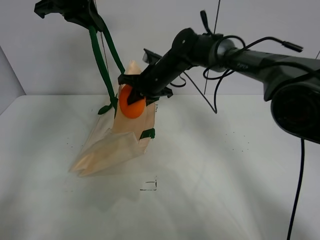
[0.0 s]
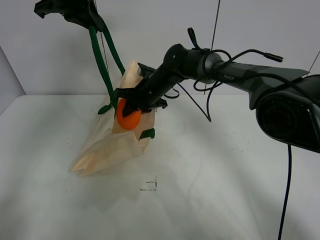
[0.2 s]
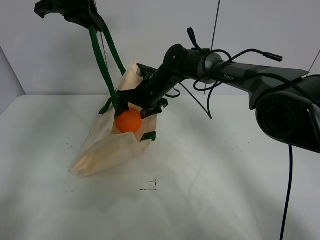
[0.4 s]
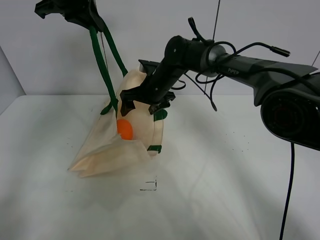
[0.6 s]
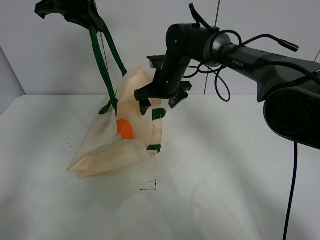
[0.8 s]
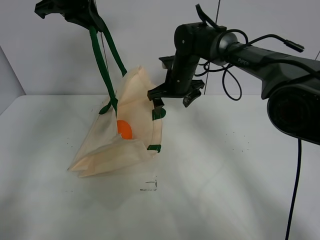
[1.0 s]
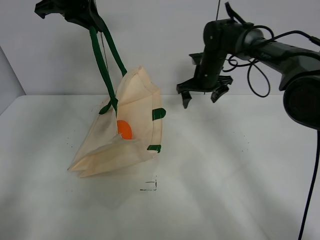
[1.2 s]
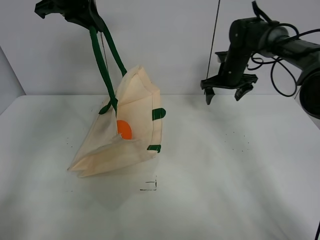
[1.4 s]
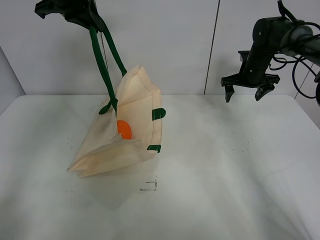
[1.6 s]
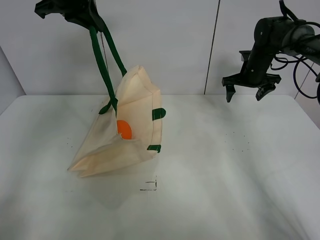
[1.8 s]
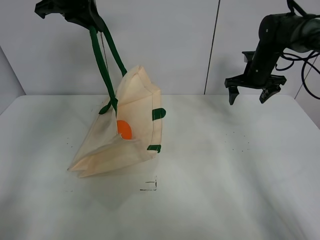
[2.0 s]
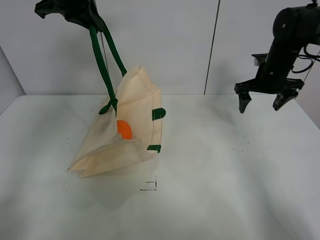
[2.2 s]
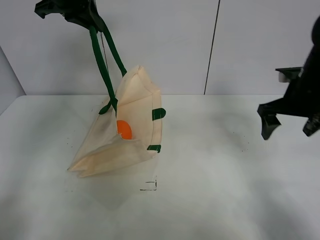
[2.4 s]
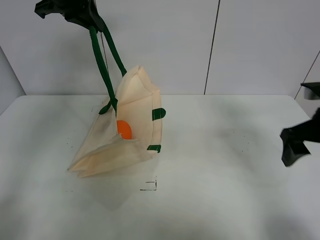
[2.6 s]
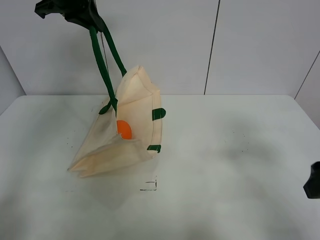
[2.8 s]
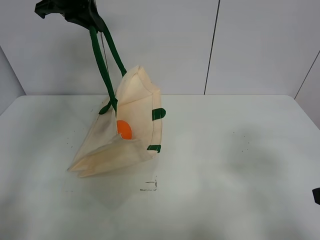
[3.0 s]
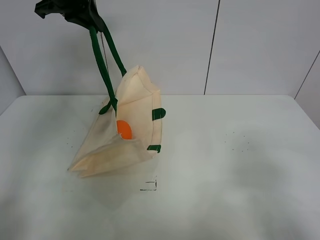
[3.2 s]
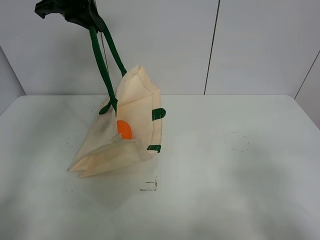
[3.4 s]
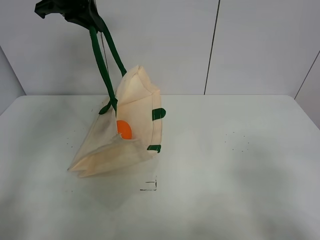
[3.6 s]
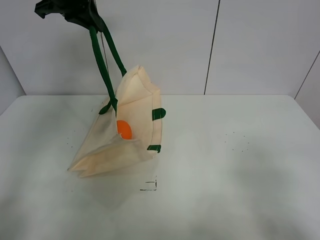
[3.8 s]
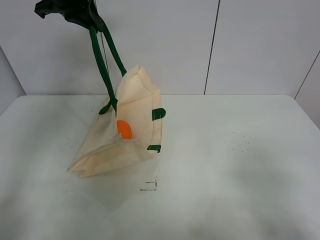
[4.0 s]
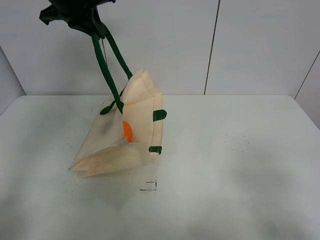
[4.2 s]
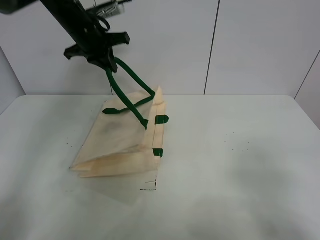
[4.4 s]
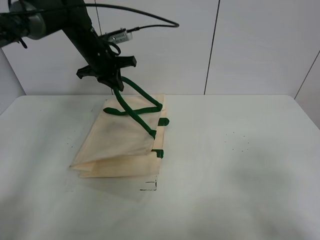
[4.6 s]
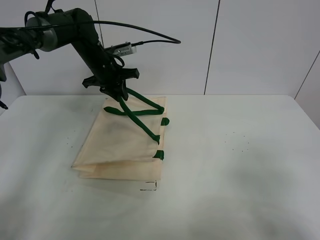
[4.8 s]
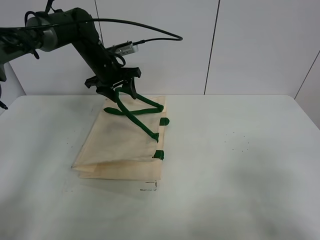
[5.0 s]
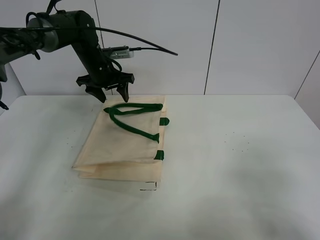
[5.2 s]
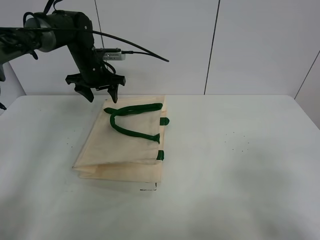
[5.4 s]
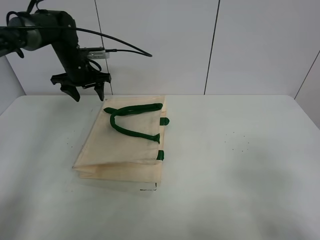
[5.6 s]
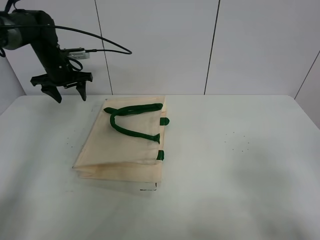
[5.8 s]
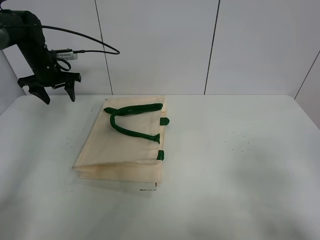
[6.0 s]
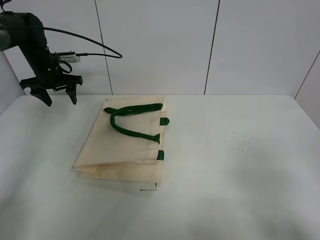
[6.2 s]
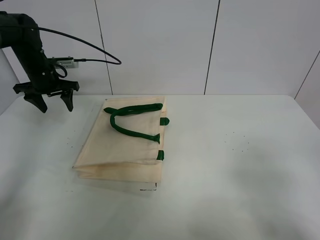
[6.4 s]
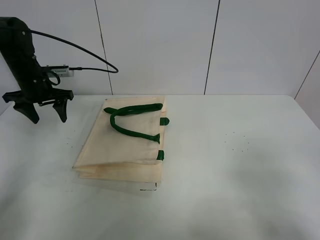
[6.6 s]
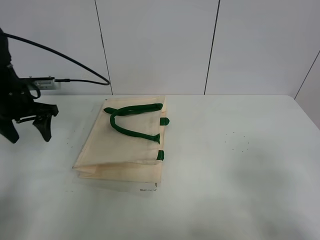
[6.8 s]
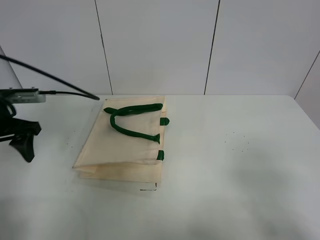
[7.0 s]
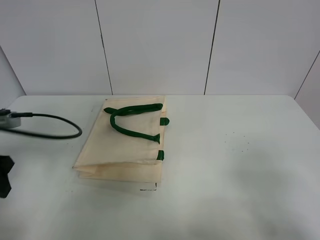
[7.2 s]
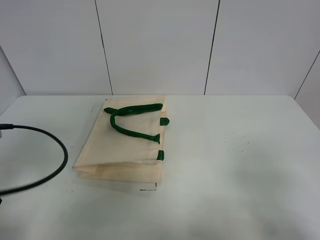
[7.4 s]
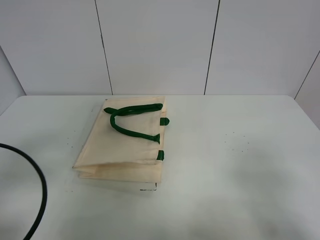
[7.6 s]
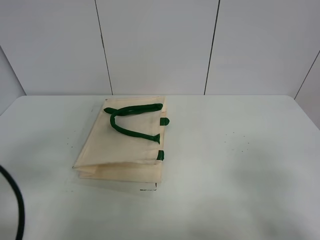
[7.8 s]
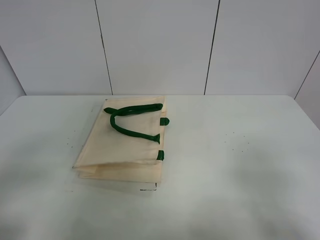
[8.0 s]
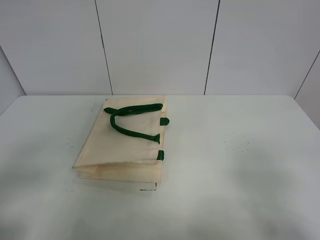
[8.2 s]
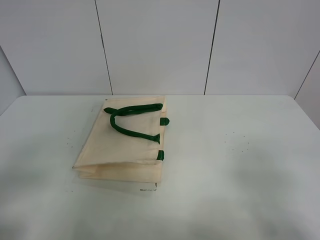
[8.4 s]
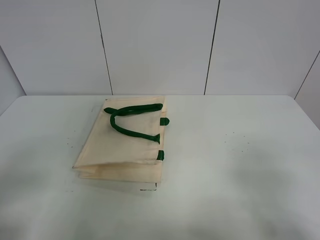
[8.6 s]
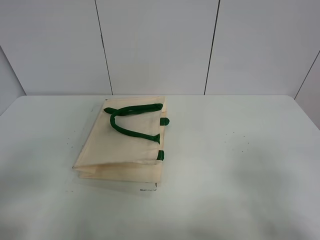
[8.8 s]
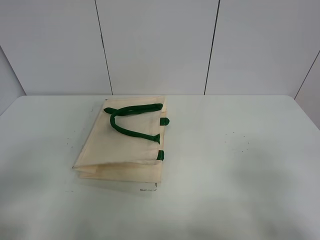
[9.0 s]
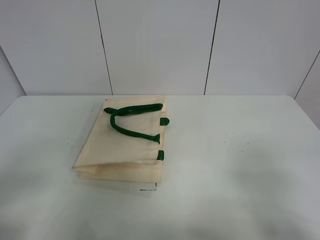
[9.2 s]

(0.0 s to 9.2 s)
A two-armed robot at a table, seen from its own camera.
Task of the whole recording: open the white linen bag and put the orange in the bag.
Step, 0.8 s - 5.2 s: Put down the handbag with left gripper.
0.0 s - 1.6 s: The right gripper moves to the right, some 25 cm, and opens its fingers.
1.6 s - 3.0 s: The right gripper heads backward, covering roughly 40 cm.
3.0 s - 4.6 s: The right gripper heads backward, covering about 10 cm; the left gripper heads downward and forward, covering approximately 20 cm.
4.6 s - 6.2 s: The left gripper is displaced to the left by roughly 15 cm, and opens.
6.2 s - 7.6 s: The left gripper shifts some 40 cm backward.
7.6 s - 9.2 s: The left gripper is displaced backward by approximately 5 cm.

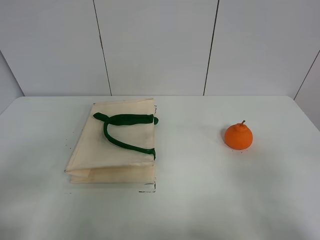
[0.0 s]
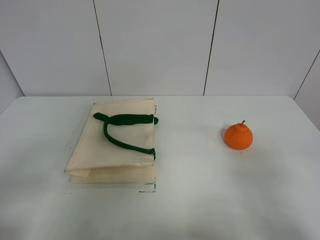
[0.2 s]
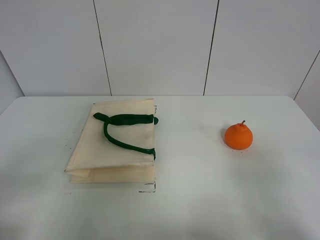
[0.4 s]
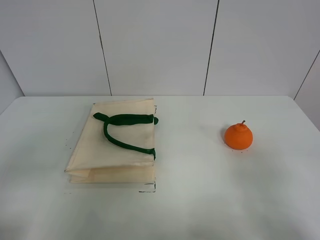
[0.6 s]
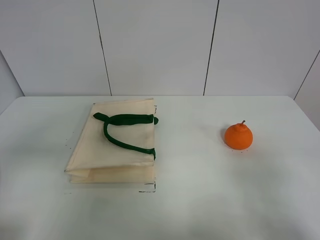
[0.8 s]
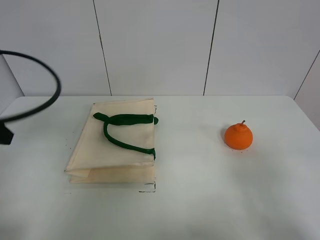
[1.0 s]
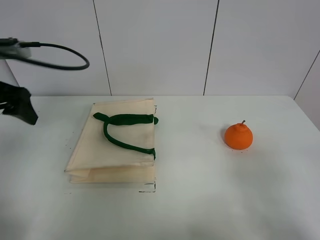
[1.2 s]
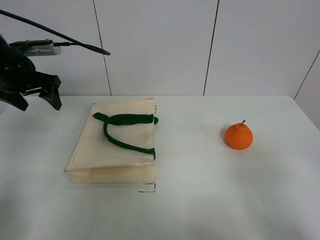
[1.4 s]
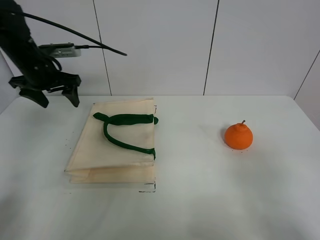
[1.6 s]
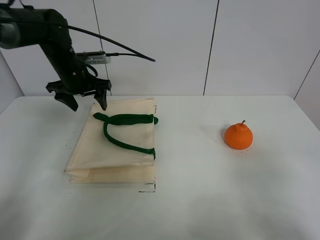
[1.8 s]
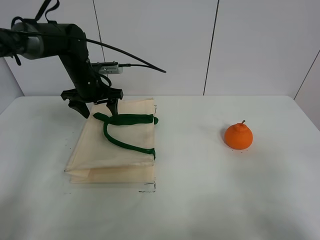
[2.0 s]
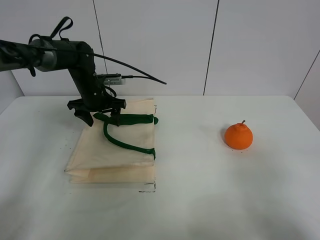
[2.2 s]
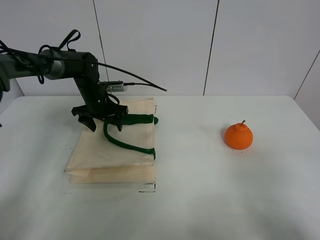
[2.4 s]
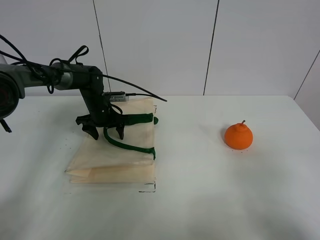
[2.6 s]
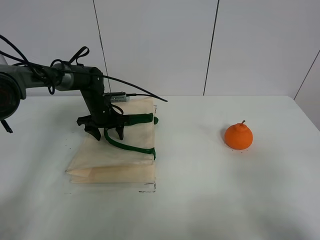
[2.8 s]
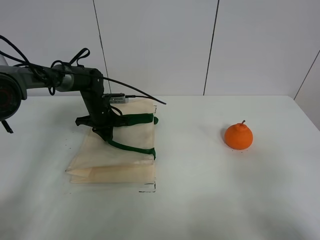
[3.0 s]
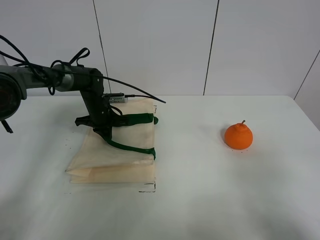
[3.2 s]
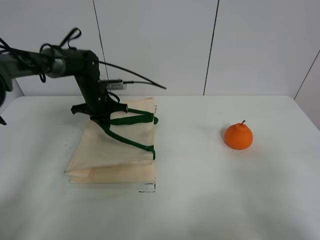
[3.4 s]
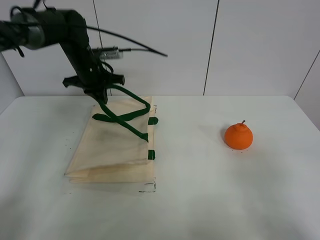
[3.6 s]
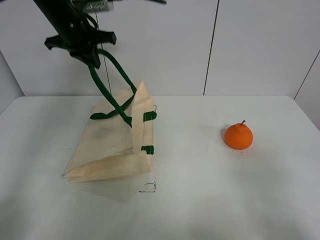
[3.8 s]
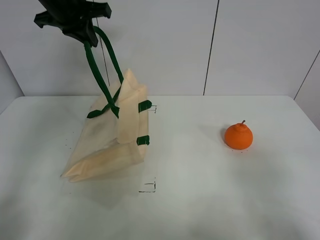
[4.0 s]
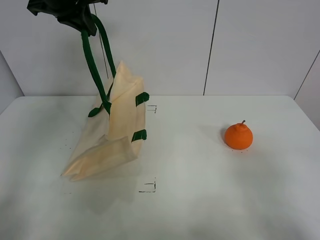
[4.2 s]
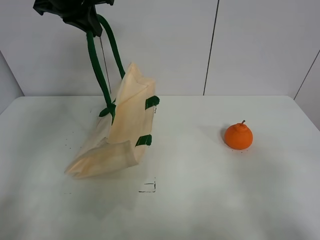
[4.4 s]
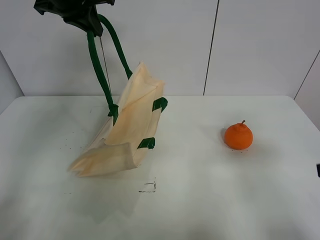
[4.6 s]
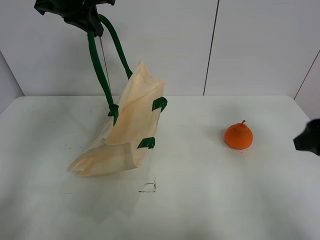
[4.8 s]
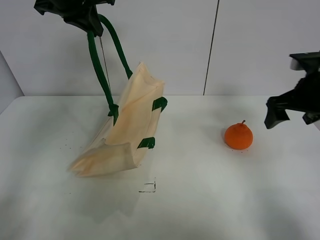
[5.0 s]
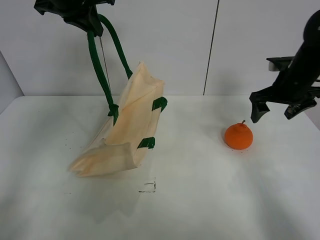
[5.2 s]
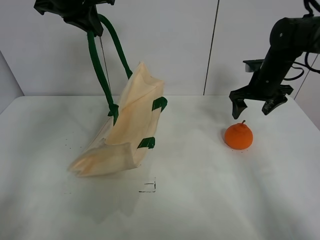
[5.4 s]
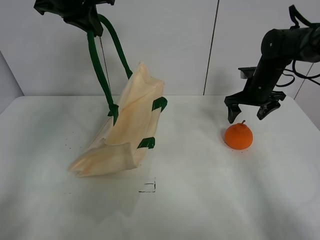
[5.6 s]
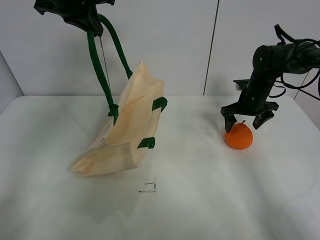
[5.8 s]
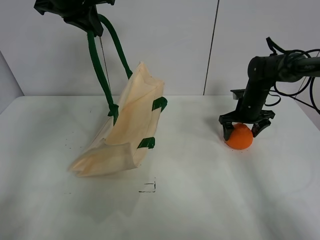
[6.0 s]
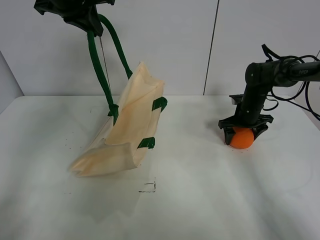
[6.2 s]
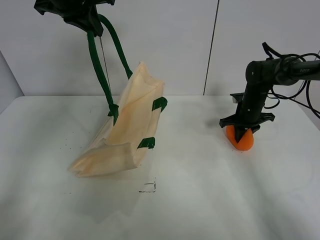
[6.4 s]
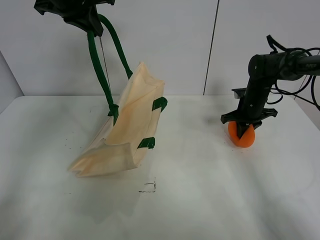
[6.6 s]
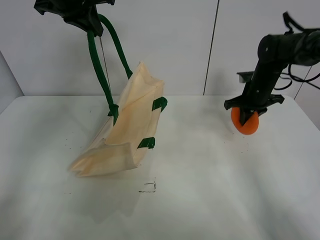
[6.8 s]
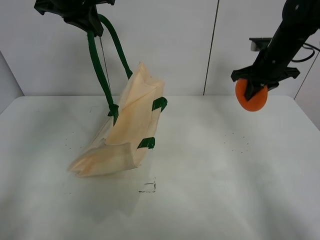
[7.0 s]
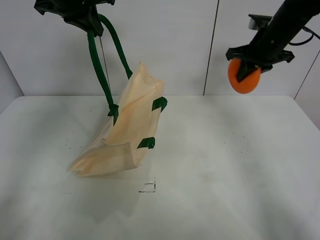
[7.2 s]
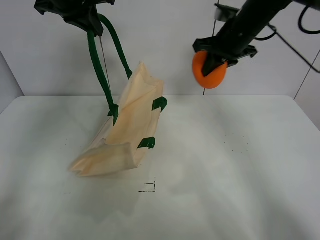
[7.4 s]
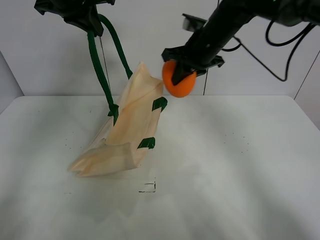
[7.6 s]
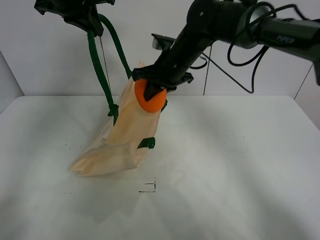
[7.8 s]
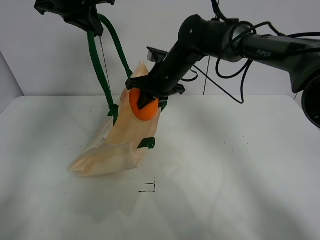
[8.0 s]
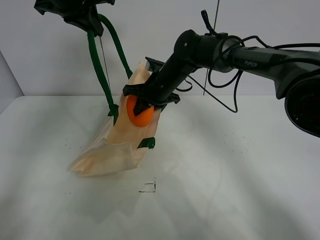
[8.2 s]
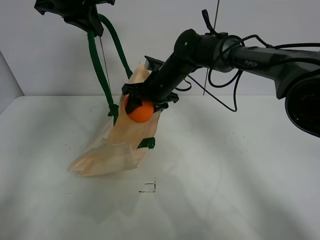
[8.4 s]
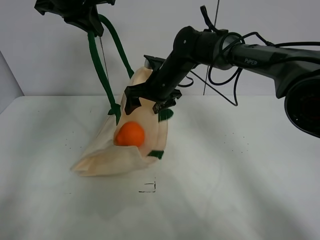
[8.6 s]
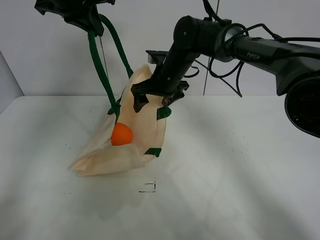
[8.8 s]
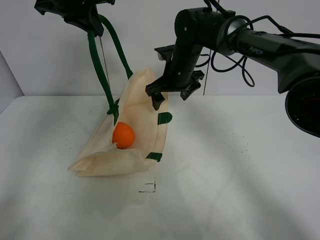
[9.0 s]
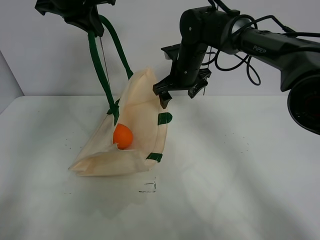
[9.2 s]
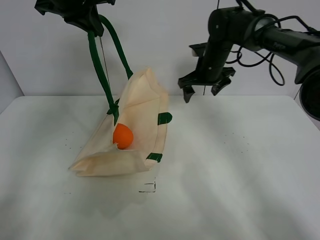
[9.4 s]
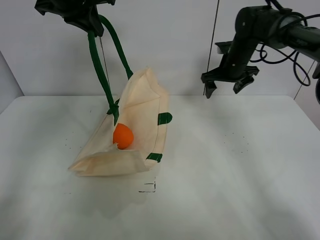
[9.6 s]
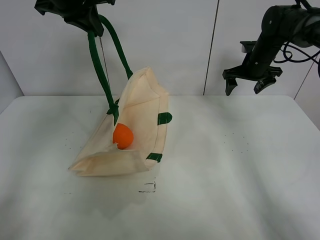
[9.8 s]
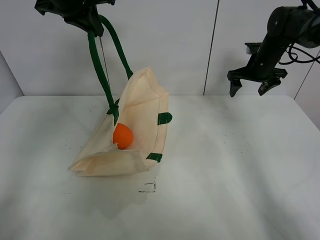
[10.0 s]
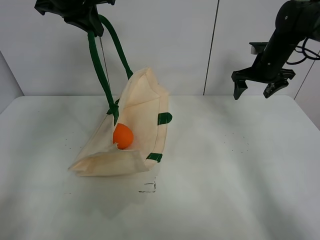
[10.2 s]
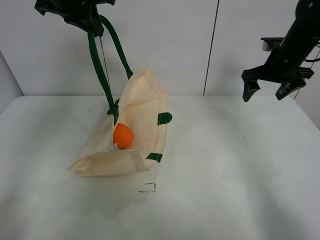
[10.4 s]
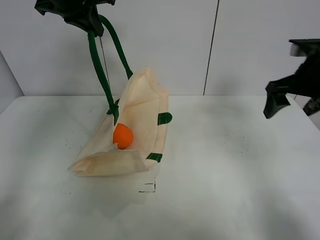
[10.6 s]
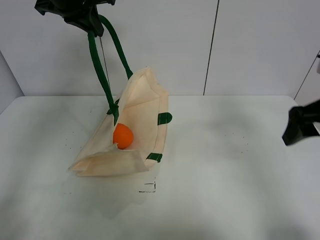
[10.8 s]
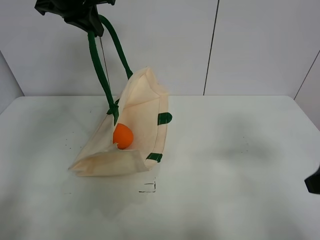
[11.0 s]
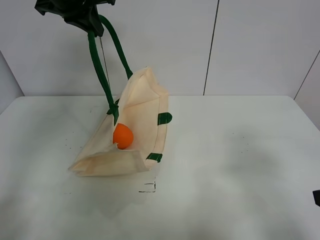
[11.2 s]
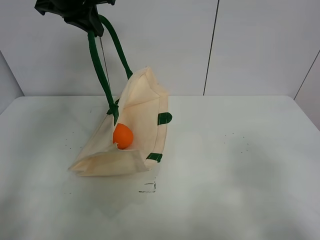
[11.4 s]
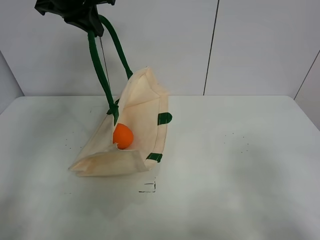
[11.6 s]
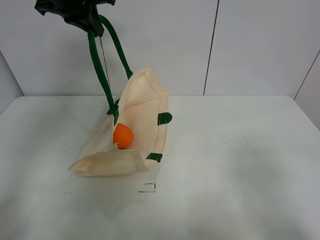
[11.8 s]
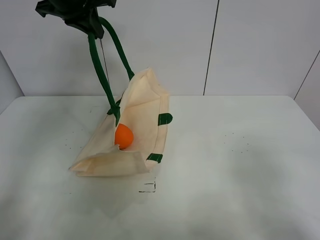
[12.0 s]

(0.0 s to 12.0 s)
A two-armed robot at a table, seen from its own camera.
Task of the whole recording: open the white linen bag and put the orange in the bag.
Step, 0.0 s - 3.8 s: Lift the handbag with left gripper.
Step, 4.0 s - 6.4 s: Grasp the orange with right gripper.
Step, 6.6 s - 8.8 s: Place the orange in the handbag with right gripper.
0.0 s - 1.6 s: The left gripper heads forward, covering approximately 40 cm.
1.6 s - 3.0 s: The left gripper is displaced downward and to the right by some 20 cm, and closes up.
3.0 s - 4.4 s: The left gripper travels upward by approximately 30 cm.
4.4 s - 6.0 s: The right gripper moves forward, some 40 cm.
6.0 s - 7.6 s: The right gripper moves upward and to the left, about 25 cm, and closes up.
7.6 s - 9.0 s: The right gripper shifts about 5 cm downward, and opens its fingers.
9.0 s - 10.4 s: The right gripper is displaced to the right by roughly 20 cm.
10.4 s - 12.0 s: The right gripper shifts roughly 40 cm backward.

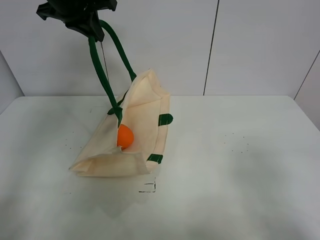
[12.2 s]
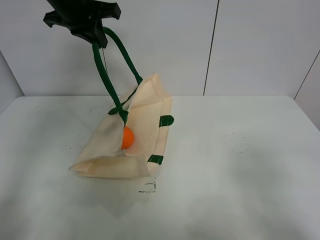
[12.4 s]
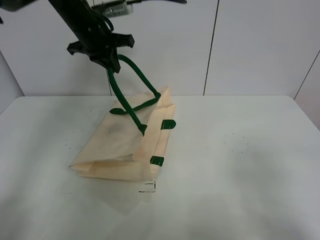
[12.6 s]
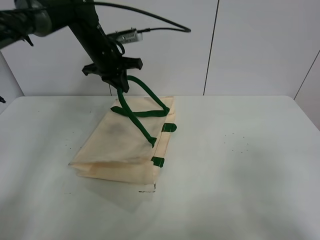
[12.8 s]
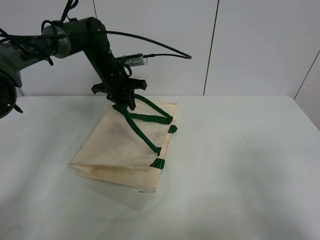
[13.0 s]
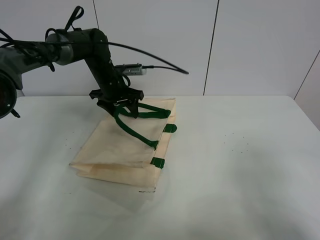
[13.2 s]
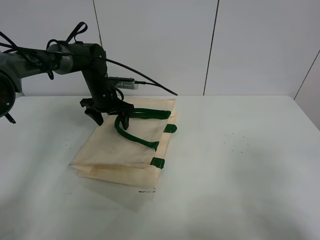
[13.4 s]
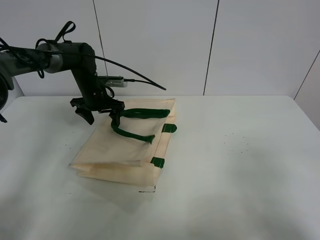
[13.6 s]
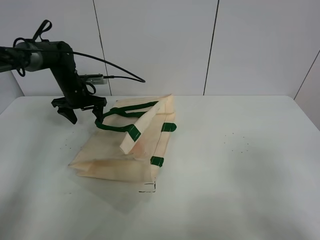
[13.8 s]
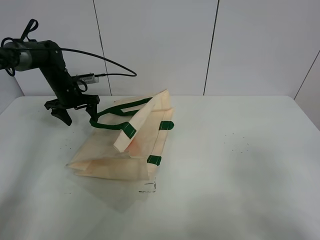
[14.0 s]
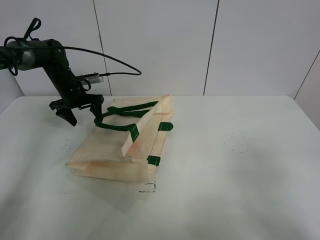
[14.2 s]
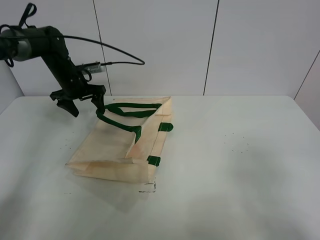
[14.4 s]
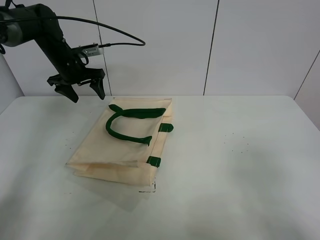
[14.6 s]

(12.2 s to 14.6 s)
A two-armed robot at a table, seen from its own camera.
Task of the whole recording: open the white linen bag and put the orange in the bag.
12.2 s - 13.4 s: The left gripper goes roughly 25 cm downward, and opens up.
13.4 s - 14.6 s: The left gripper moves to the left and upward, approximately 10 cm.
